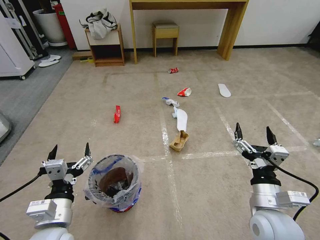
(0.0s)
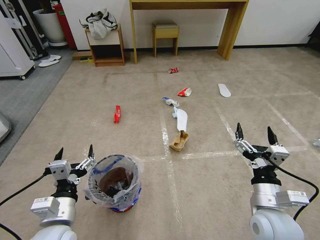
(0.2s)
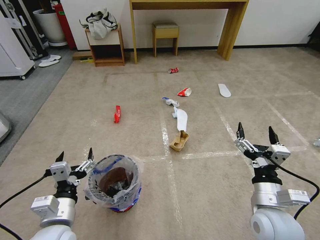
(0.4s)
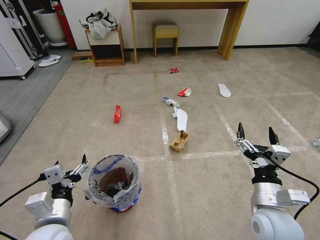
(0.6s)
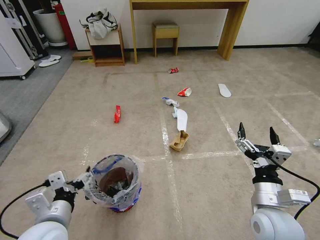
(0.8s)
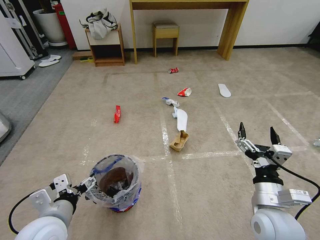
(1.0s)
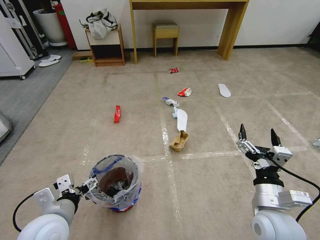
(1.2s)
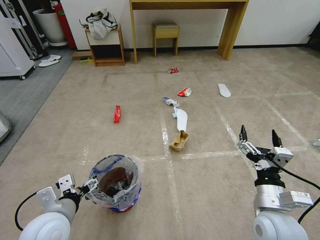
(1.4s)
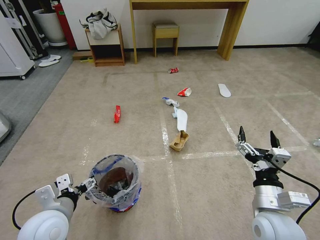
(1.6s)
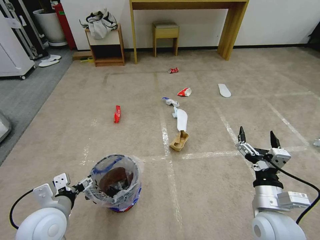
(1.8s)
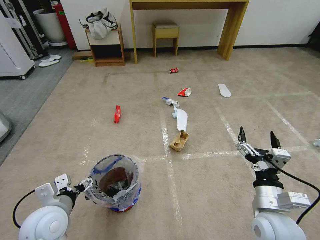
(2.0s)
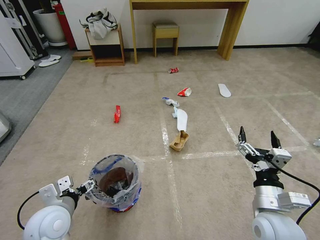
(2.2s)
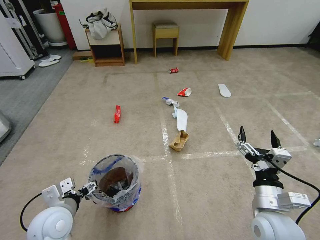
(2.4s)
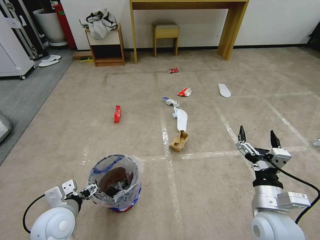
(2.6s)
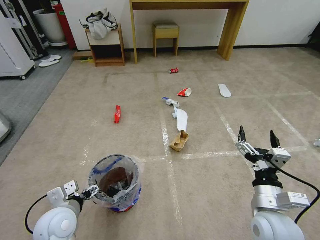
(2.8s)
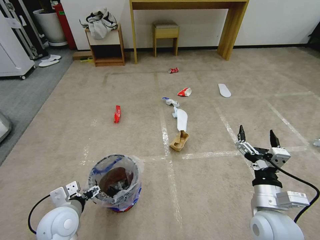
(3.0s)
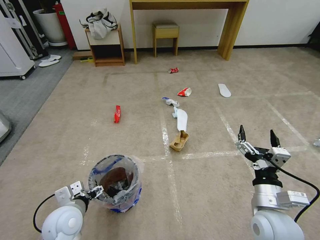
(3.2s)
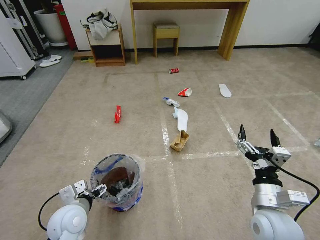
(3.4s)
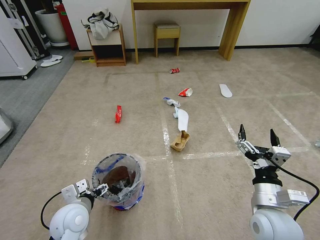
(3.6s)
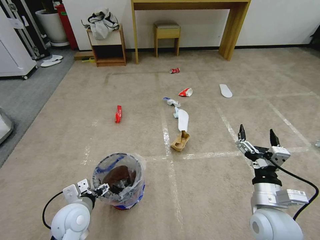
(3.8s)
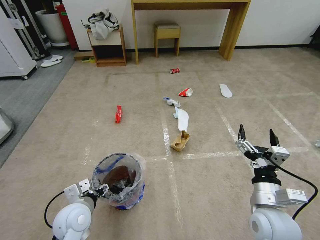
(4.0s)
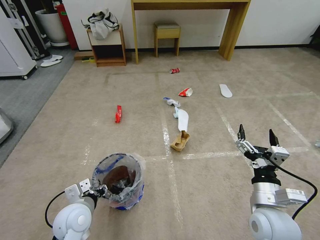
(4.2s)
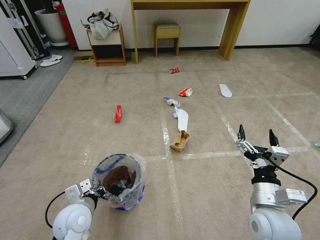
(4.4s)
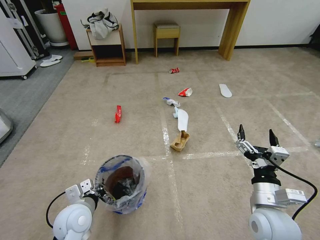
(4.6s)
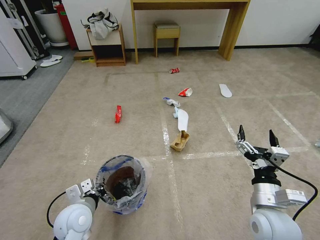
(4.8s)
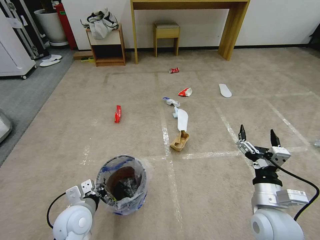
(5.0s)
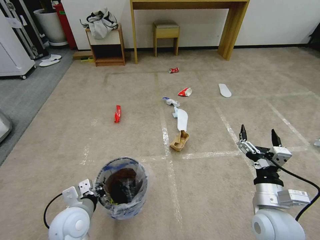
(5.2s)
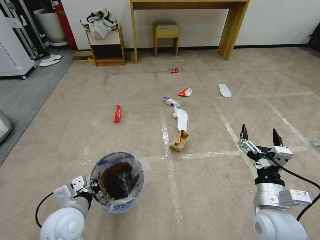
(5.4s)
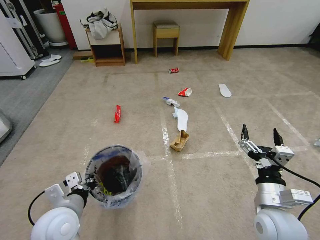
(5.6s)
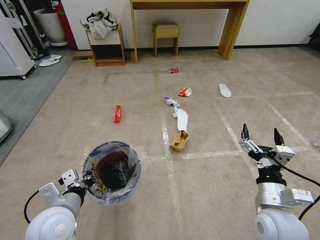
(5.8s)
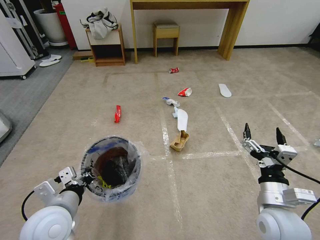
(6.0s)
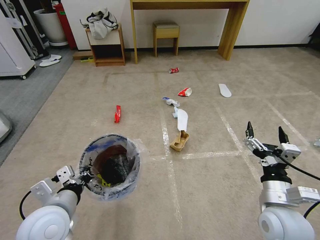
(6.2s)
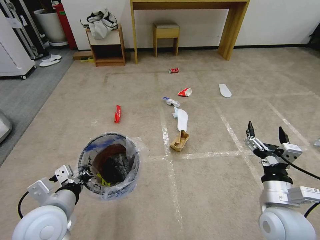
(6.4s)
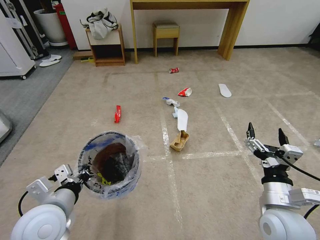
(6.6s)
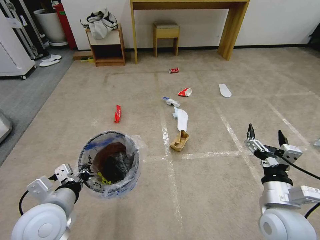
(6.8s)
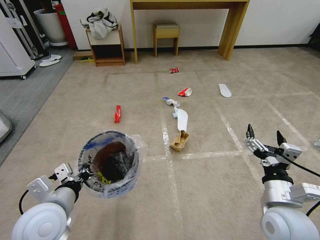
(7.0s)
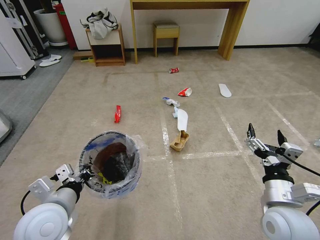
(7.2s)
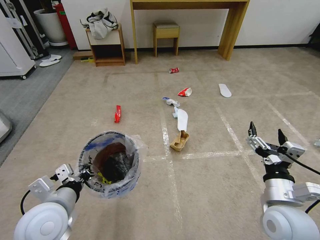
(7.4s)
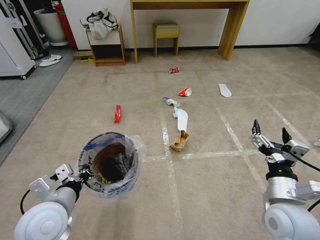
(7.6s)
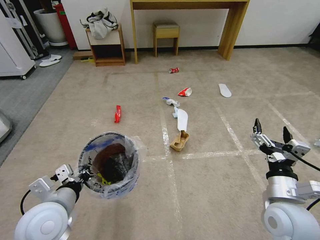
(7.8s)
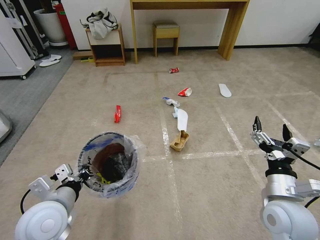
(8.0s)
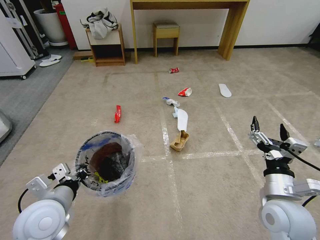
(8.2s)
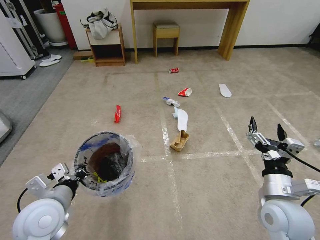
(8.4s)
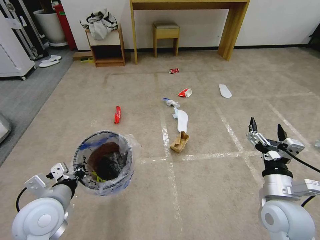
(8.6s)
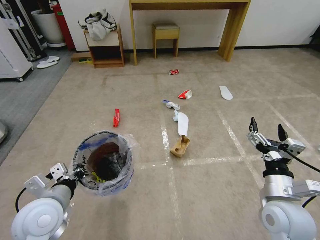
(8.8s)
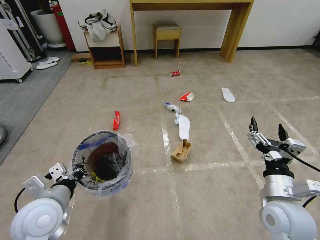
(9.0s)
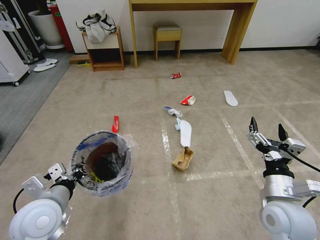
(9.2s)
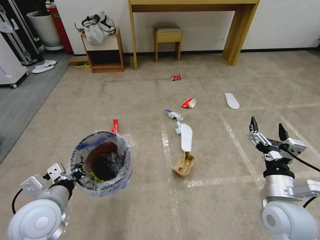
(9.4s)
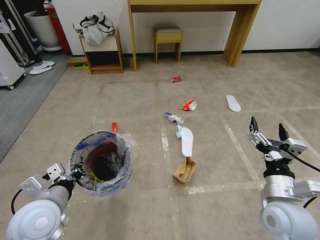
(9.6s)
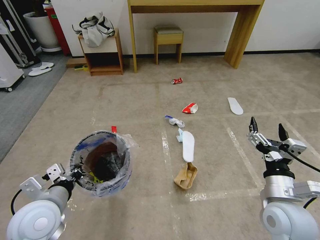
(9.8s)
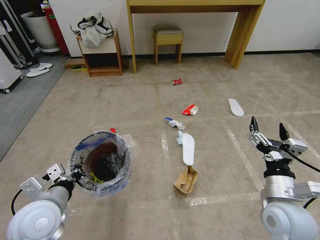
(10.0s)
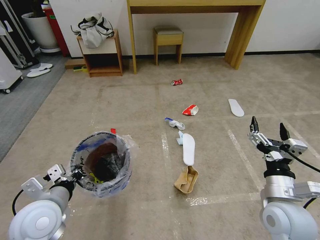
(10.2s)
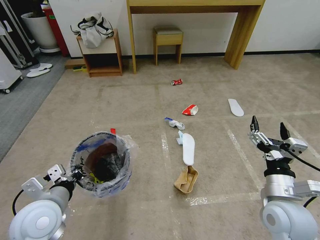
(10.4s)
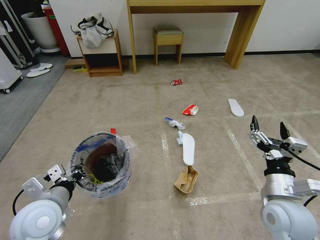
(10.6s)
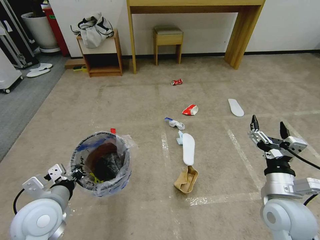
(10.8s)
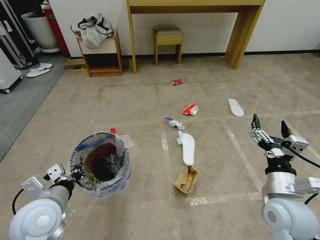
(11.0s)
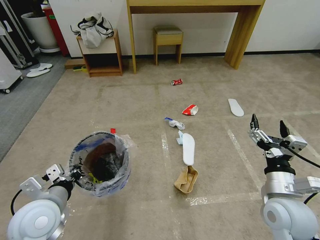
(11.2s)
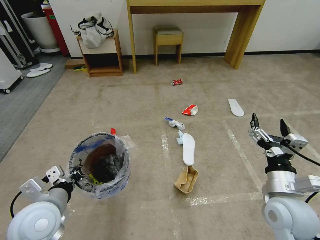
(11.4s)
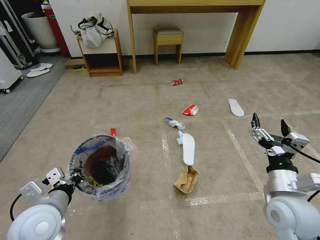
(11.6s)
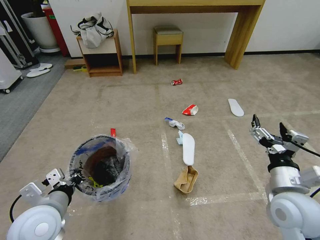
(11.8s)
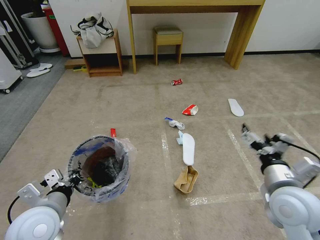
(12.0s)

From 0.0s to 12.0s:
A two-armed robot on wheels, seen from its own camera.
Task of the whole recording: Pick up the trash bin and place the garbage on the floor into it.
From 1.6s to 3.0s: The left gripper is displaced downward by about 5 cm.
From 3.0s to 4.4s: The left gripper closes its fingers.
From 4.4s to 6.0s: The left gripper shifts some 10 cm upward.
From 6.0s to 9.0s: The grippers stay close to where they were, moving slightly.

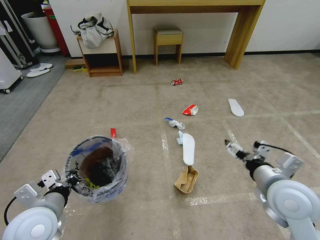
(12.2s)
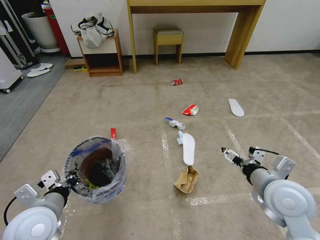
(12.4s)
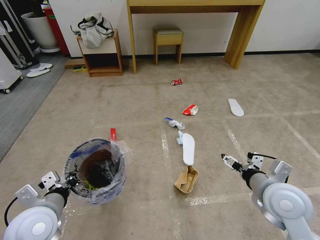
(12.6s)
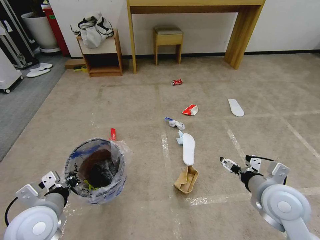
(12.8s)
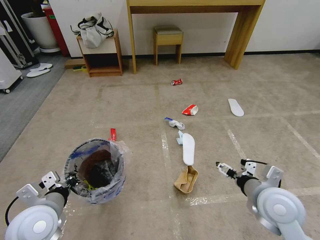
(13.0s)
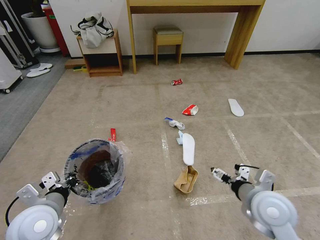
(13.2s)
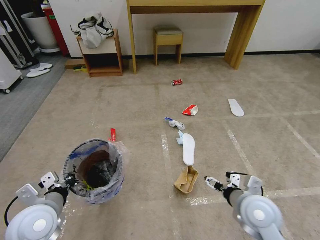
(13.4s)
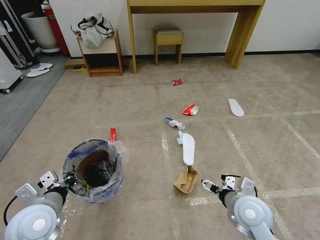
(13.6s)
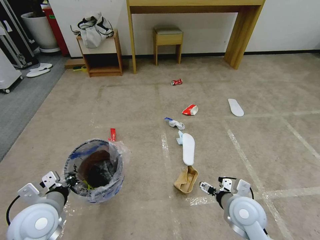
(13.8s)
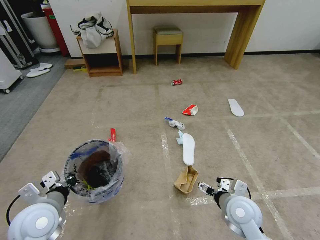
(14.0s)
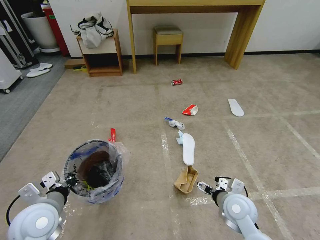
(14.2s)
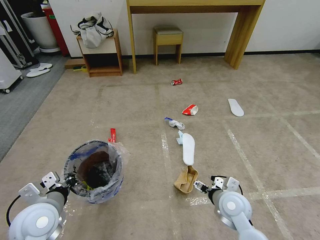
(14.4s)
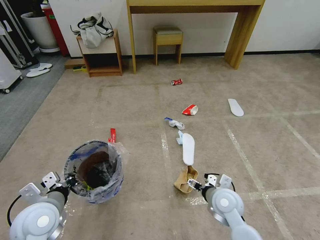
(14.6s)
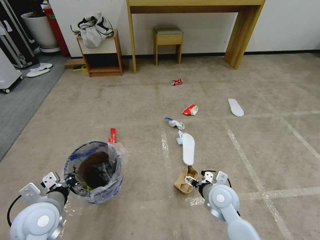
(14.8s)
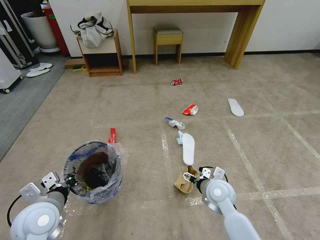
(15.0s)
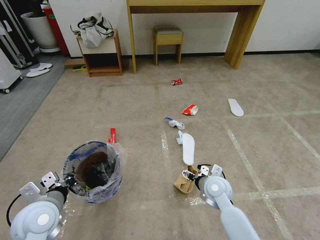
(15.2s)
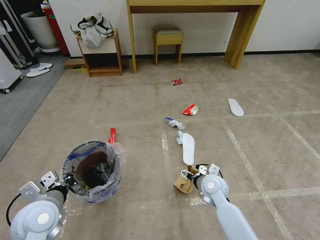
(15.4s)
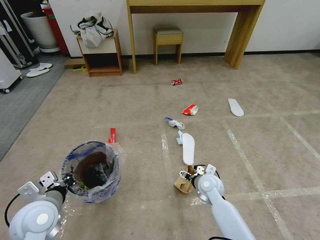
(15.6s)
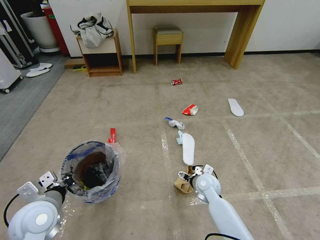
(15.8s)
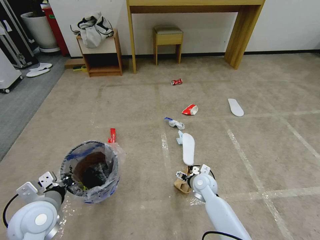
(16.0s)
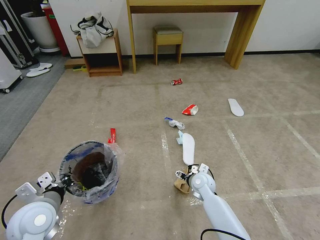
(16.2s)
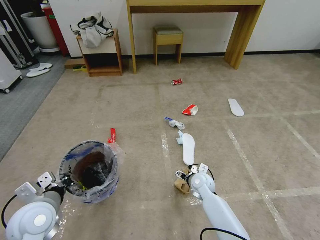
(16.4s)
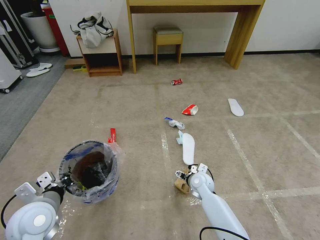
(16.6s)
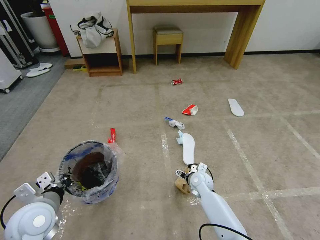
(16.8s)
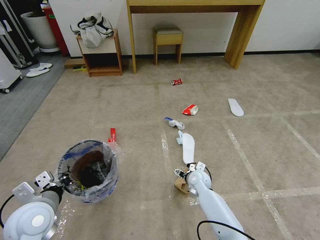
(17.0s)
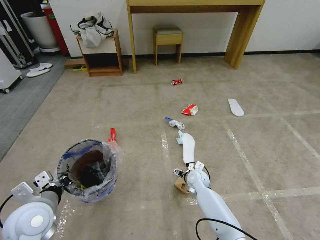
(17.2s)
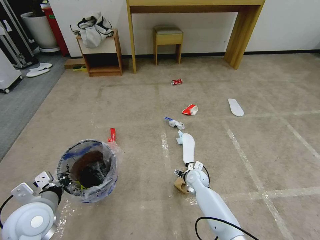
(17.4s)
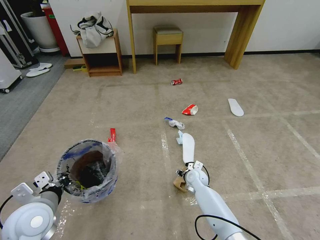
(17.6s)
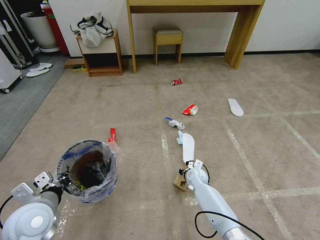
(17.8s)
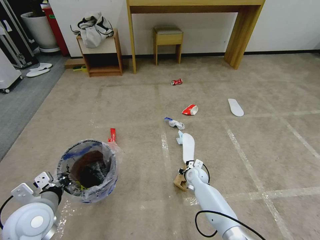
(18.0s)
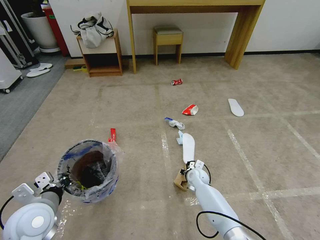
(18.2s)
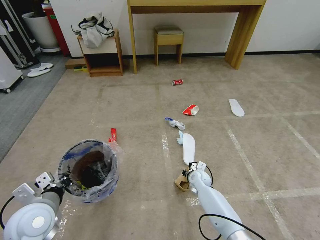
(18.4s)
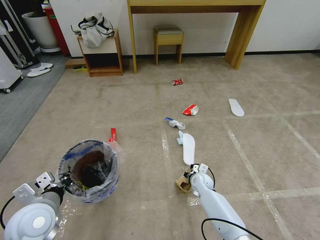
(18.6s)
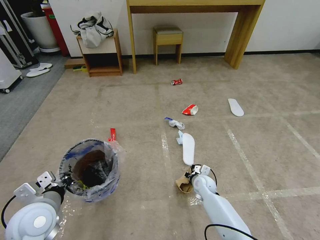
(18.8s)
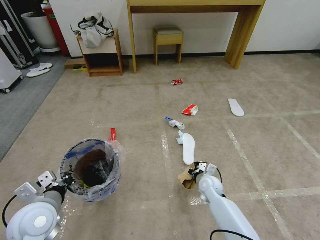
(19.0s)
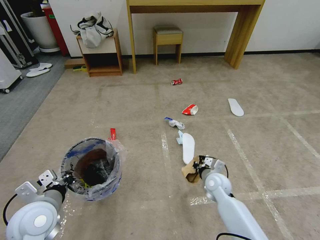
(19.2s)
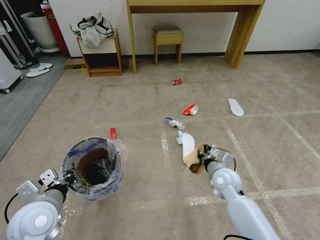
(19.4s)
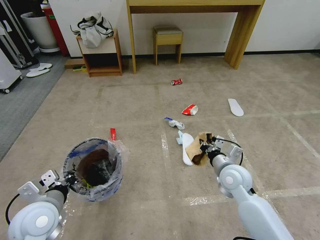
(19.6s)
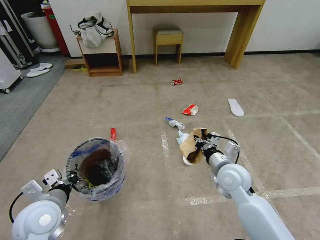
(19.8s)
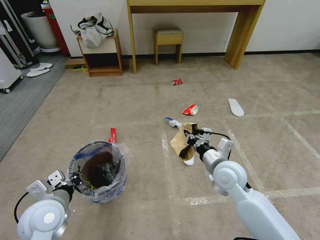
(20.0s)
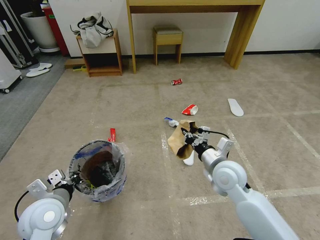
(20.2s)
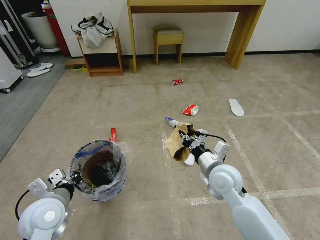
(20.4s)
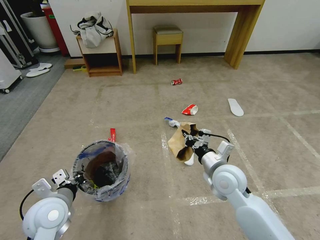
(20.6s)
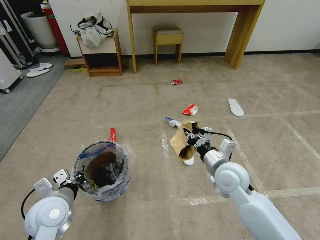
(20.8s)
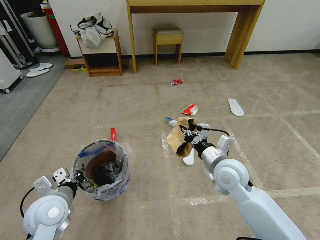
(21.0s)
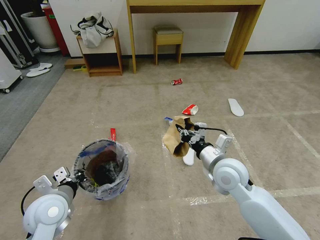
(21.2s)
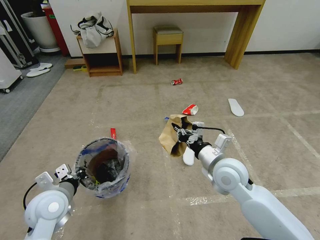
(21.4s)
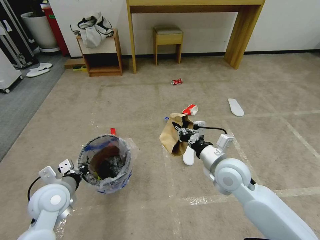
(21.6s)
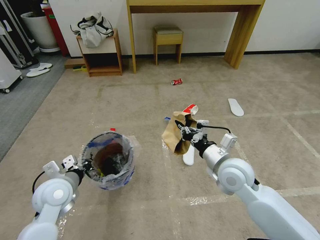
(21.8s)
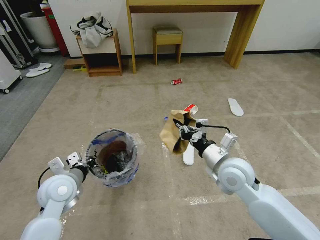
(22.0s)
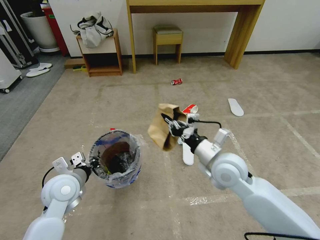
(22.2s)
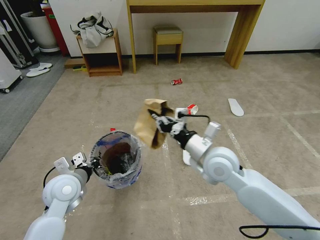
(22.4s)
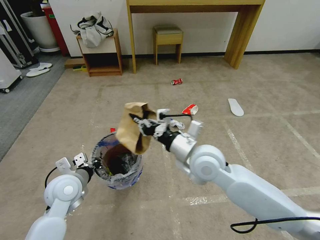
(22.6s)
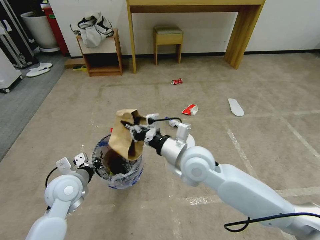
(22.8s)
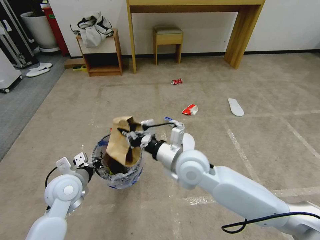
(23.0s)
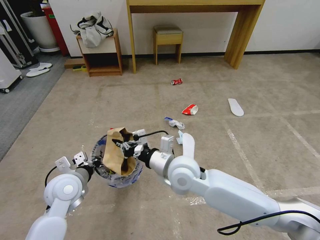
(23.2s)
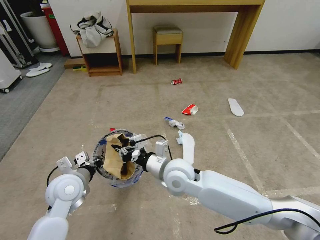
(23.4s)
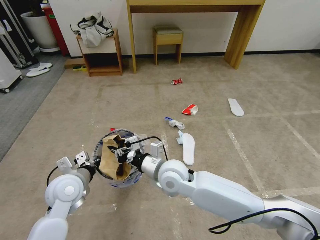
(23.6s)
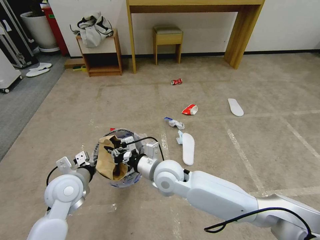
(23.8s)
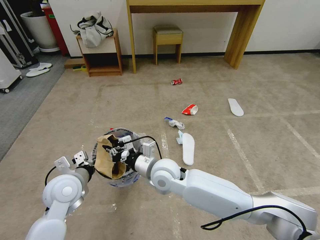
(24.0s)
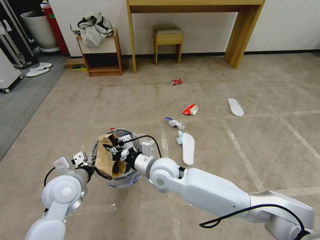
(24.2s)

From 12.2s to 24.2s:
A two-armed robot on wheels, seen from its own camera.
Task of the whole recording: Pick up the trash bin and place the garbage on the floor into it.
From 12.2s to 13.8s: The right gripper moves downward, roughly 15 cm.
From 13.8s to 15.2s: The right gripper goes some 10 cm forward.
From 15.2s to 16.6s: The right gripper moves downward and forward, some 10 cm.
From 16.6s to 18.2s: The right gripper moves some 5 cm, and closes up.
From 18.2s to 19.8s: The right gripper heads upward and backward, covering approximately 25 cm.
From 19.8s to 21.2s: The grippers stay close to where they were, moving slightly.
From 21.2s to 22.6s: The right gripper goes some 10 cm to the left and upward. The left gripper is displaced forward by approximately 5 cm.
From 22.6s to 24.2s: The right gripper heads to the left and downward, covering some 15 cm.
